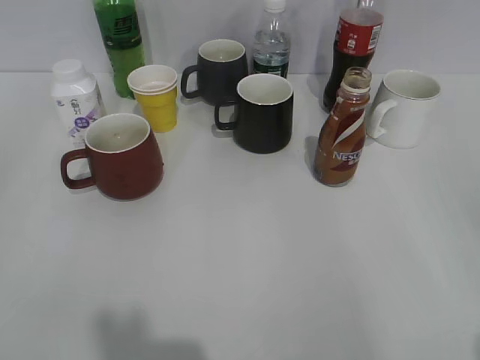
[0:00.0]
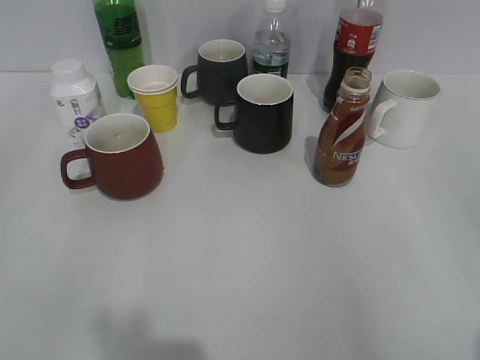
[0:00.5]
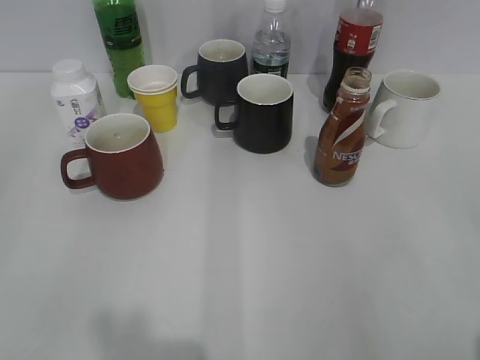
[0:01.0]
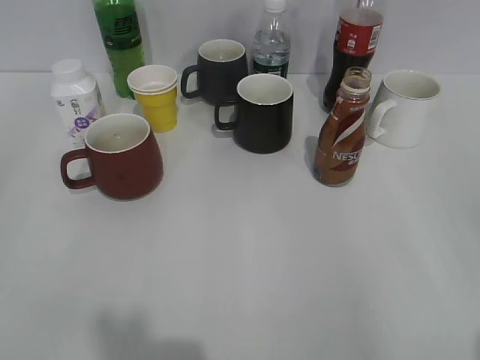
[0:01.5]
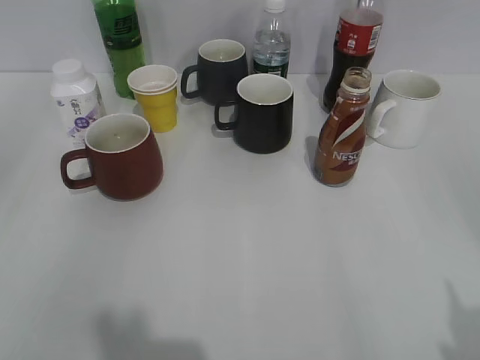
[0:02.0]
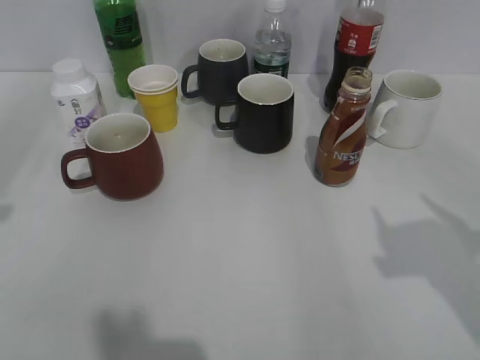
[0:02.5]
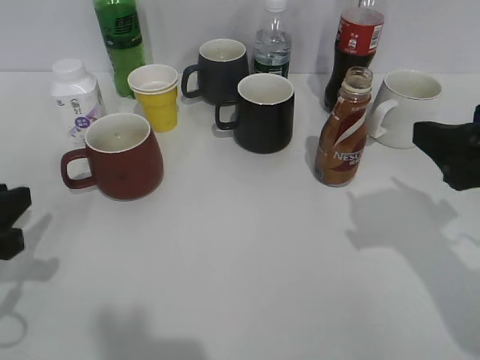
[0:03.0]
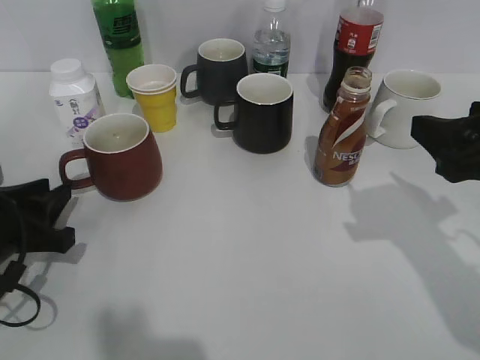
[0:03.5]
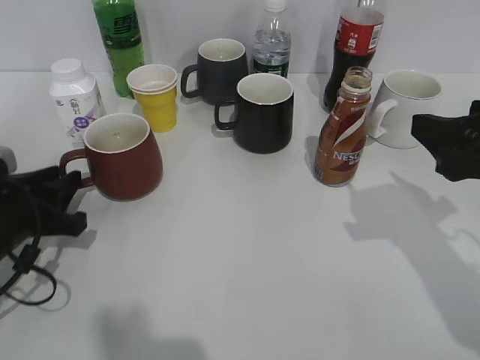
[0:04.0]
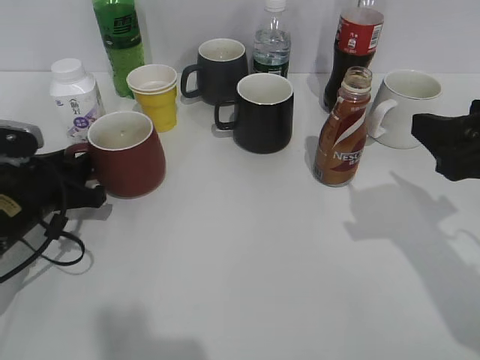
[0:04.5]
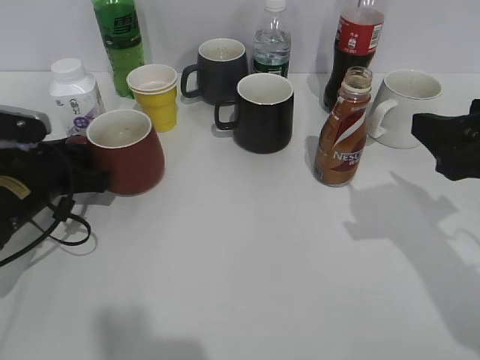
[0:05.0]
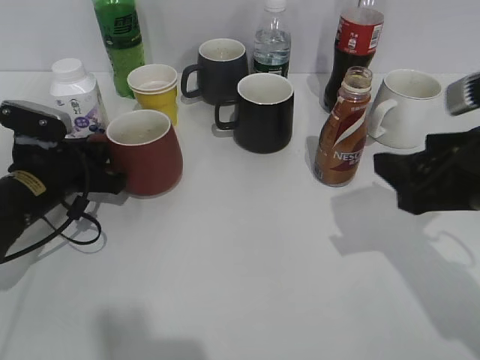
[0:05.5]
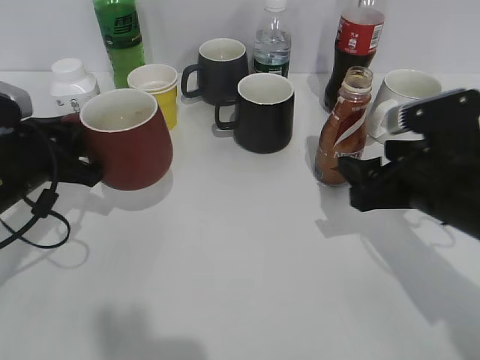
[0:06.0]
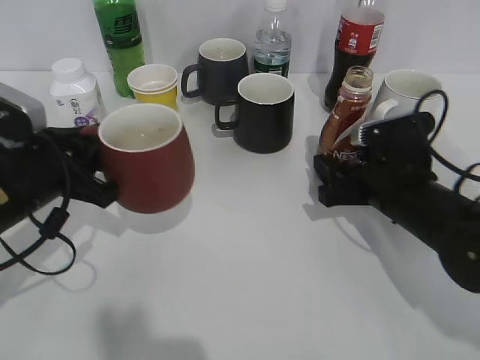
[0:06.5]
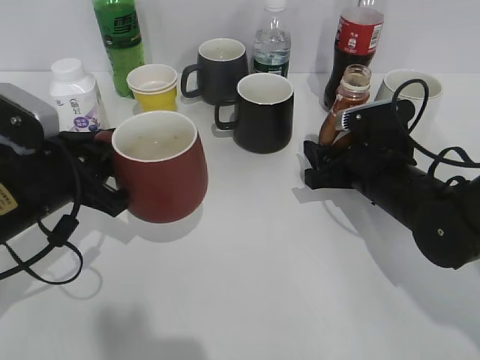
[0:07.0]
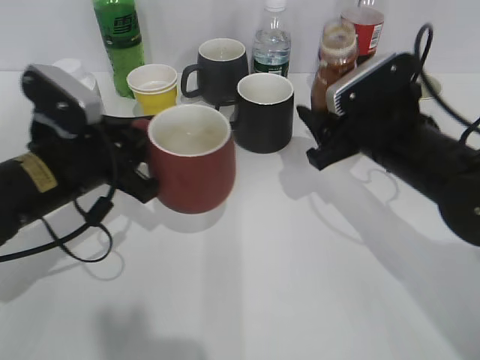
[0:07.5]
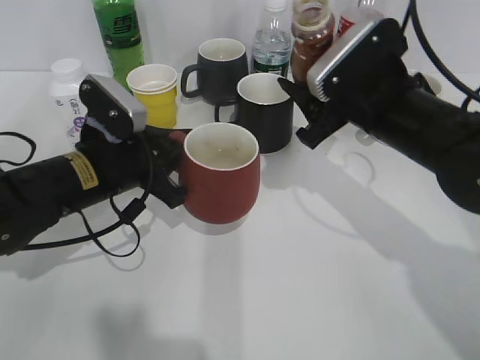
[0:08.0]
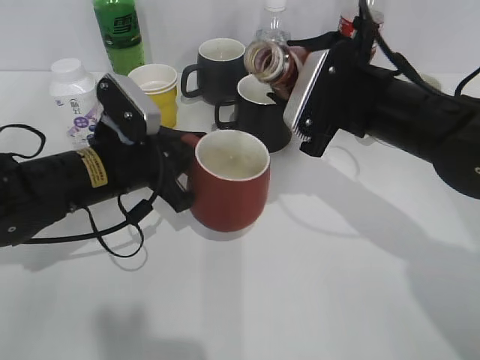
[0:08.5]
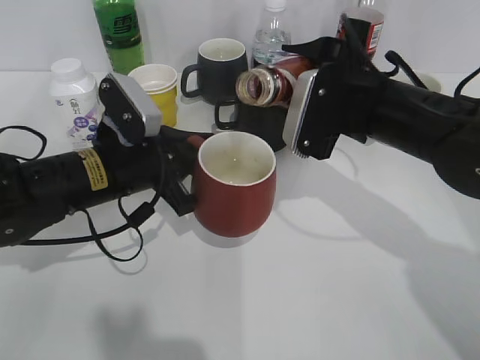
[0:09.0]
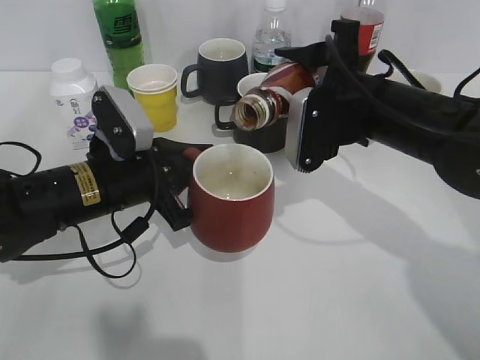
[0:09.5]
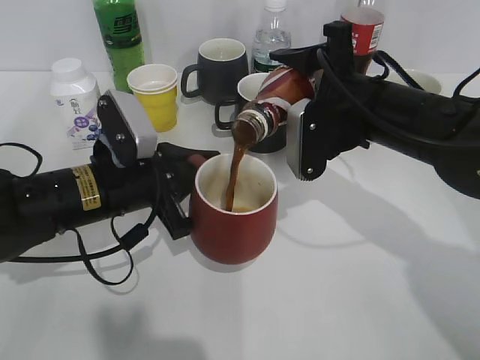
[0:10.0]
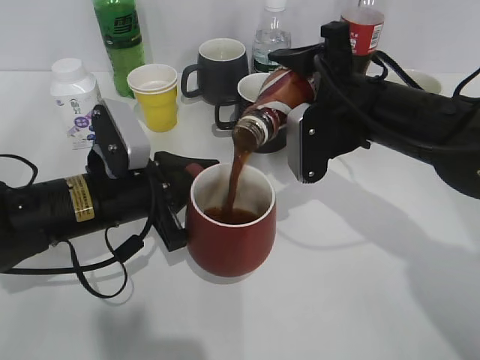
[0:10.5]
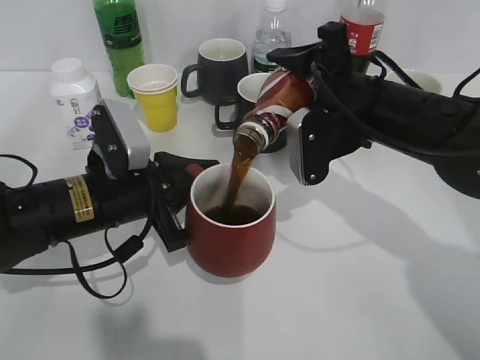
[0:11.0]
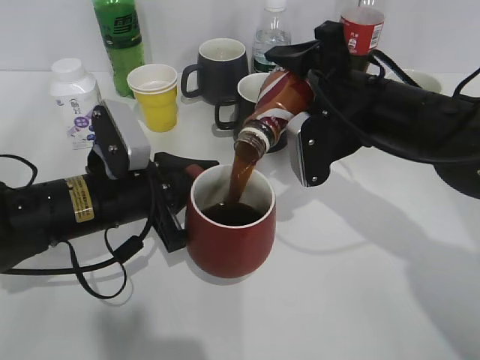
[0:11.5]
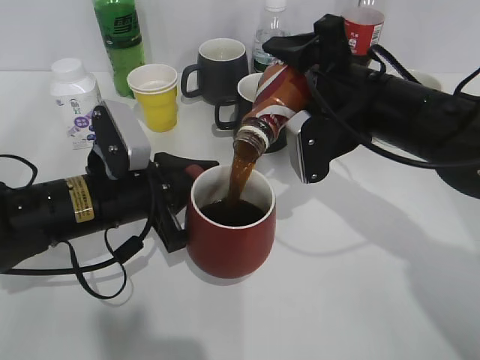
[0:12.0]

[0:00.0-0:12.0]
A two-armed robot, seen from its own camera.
Step, 0:01.5 to 0:05.5: Grasp the red cup with left gripper.
Step, 0:06.0 to 0:06.5: Grasp the bottle with coffee with right gripper.
0:02.0 to 0:04.0: The left gripper shifts roughly 25 cm downward and forward; the right gripper goes approximately 20 cm forward.
0:04.0 to 0:06.0: The right gripper travels downward by approximately 10 cm. The left gripper shifts by roughly 5 cm, and closes its fingers.
0:06.0 to 0:08.0: The left gripper moves to the right, some 10 cm, while the right gripper heads forward and to the left, covering some 10 cm.
0:10.0 to 0:12.0: The grippers move only a little.

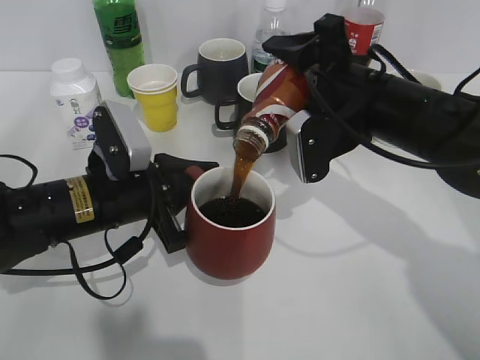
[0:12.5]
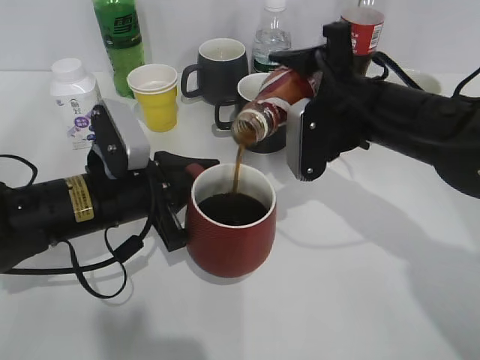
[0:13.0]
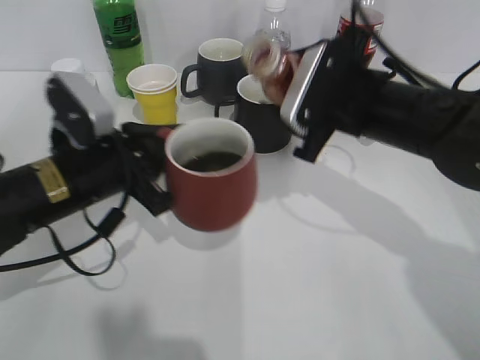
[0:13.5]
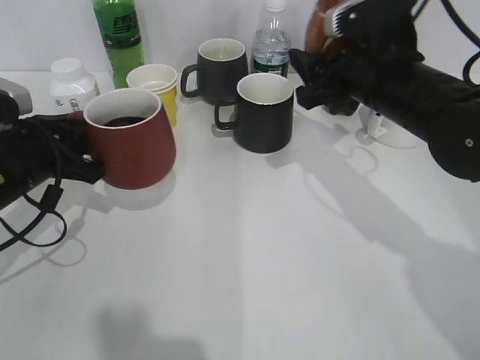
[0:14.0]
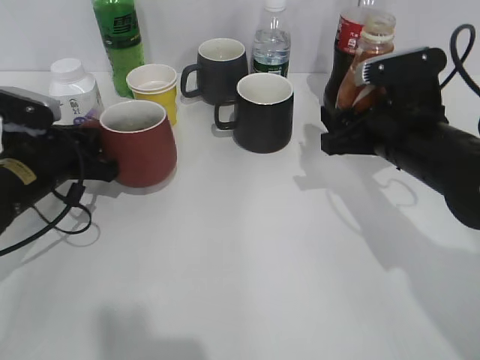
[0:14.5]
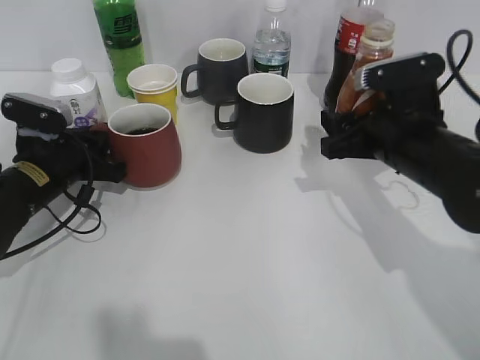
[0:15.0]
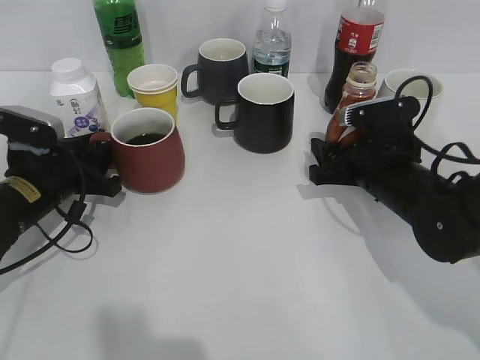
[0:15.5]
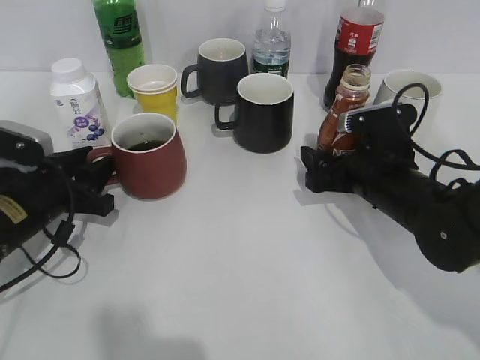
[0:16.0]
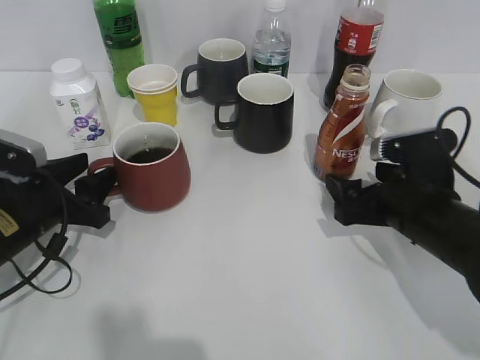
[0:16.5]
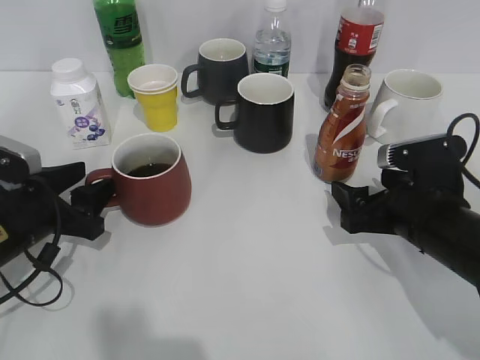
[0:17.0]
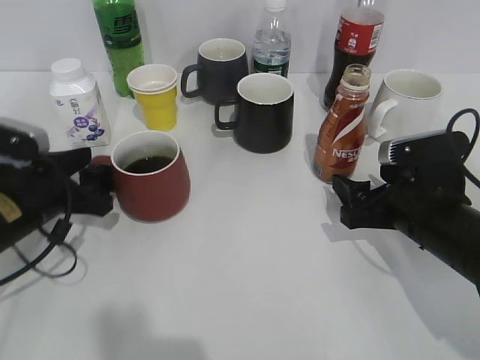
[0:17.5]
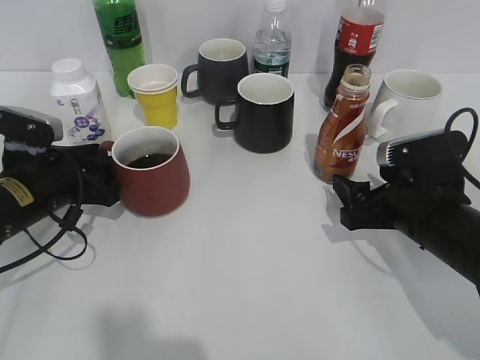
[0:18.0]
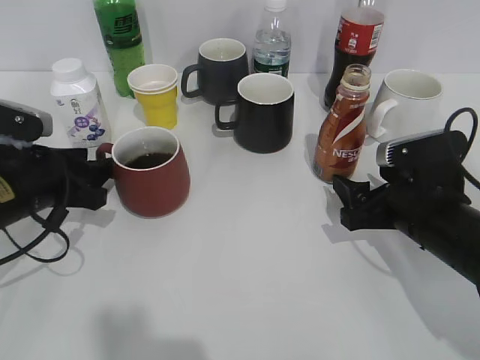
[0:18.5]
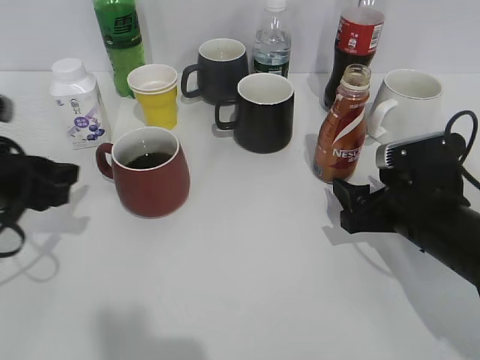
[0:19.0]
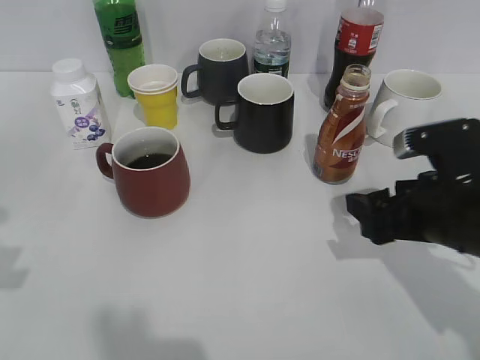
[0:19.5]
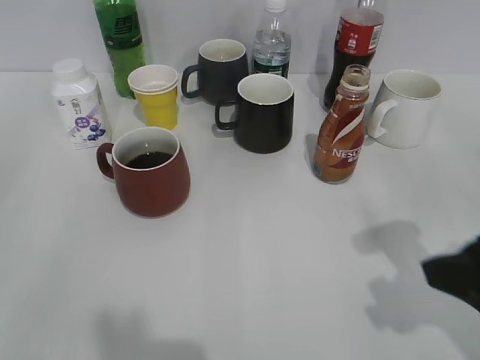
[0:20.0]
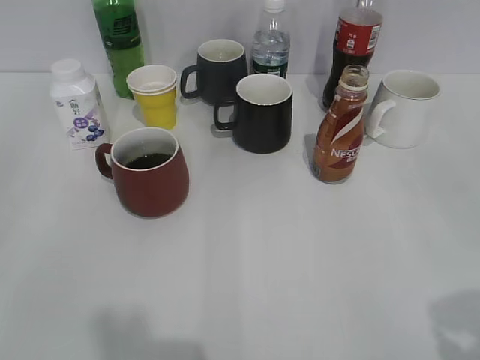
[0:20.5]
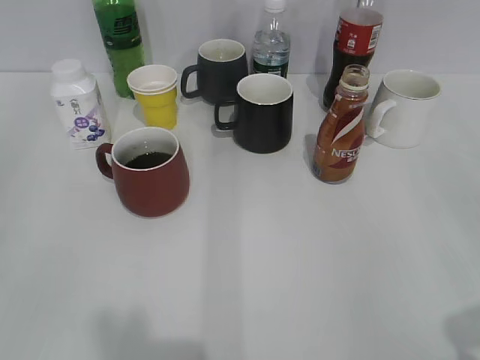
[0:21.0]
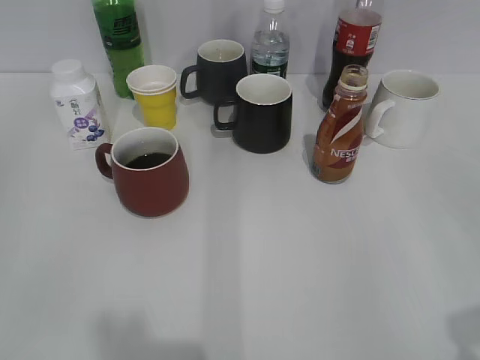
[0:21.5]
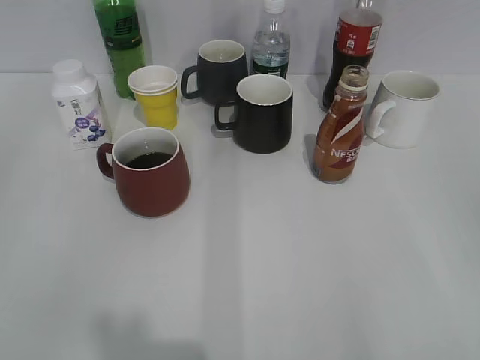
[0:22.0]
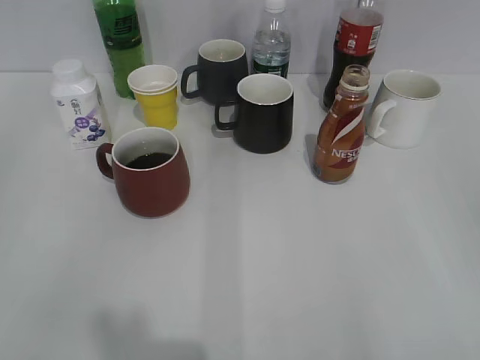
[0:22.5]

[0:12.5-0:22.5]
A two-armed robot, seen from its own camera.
Step, 0:13.5 to 0:18.5: Place the red cup on the table with left gripper.
0:12.5 to 0:14.5: The right gripper ends up roughly 5 cm from where it was. The left gripper shifts approximately 10 cm to the left and forward.
0:14.5 to 0:16.5: The right gripper heads downward, covering about 5 cm, and opens its fingers. Meanwhile the left gripper shifts roughly 5 cm backward, and opens.
0:16.5 to 0:18.5: The right gripper closes.
0:18.5 to 0:20.5: The right gripper shifts some 30 cm backward, upward and to the right. Meanwhile the left gripper travels backward and upward by roughly 30 cm.

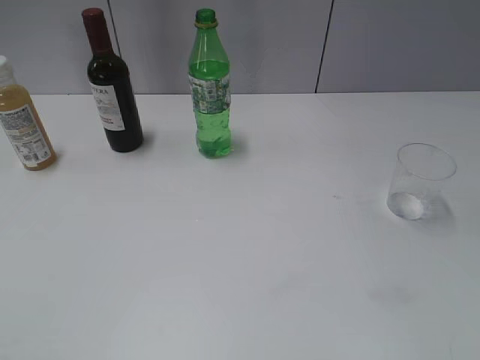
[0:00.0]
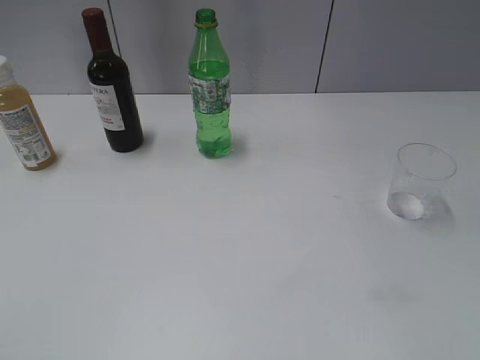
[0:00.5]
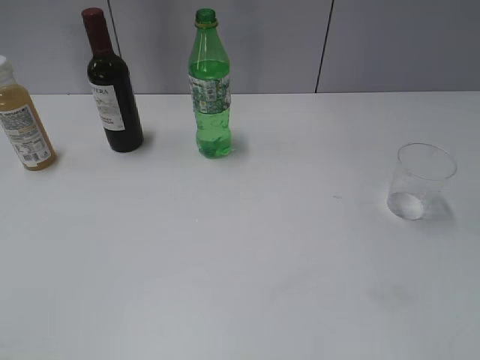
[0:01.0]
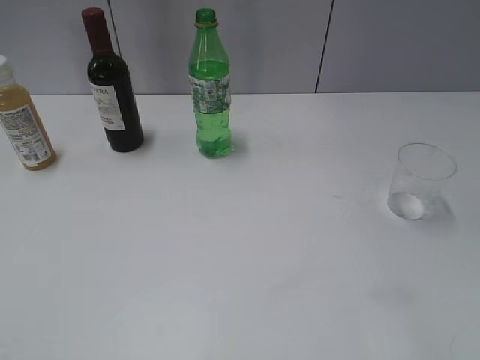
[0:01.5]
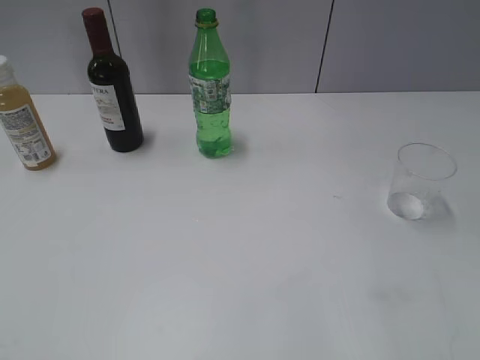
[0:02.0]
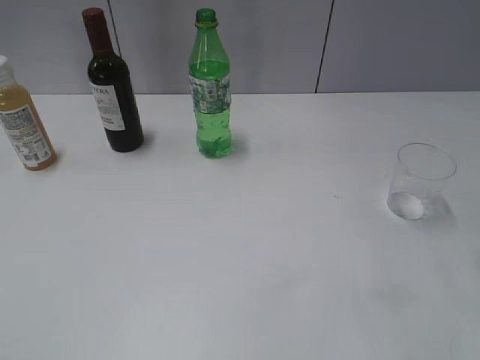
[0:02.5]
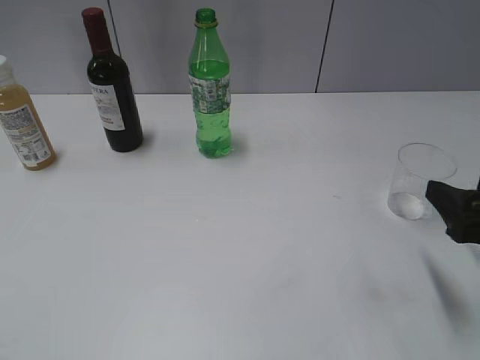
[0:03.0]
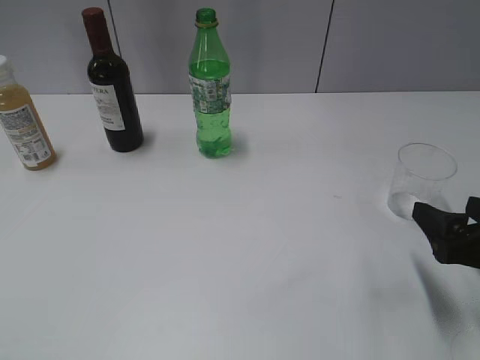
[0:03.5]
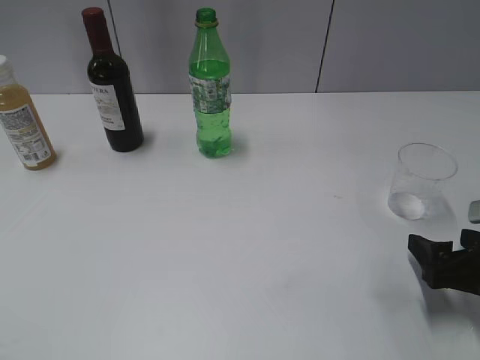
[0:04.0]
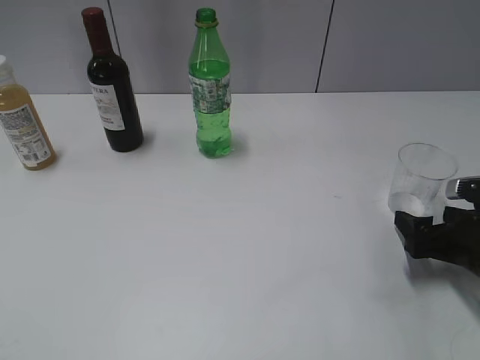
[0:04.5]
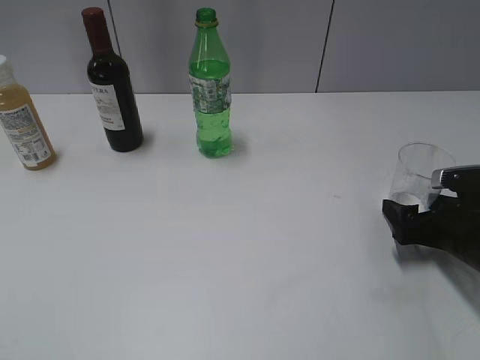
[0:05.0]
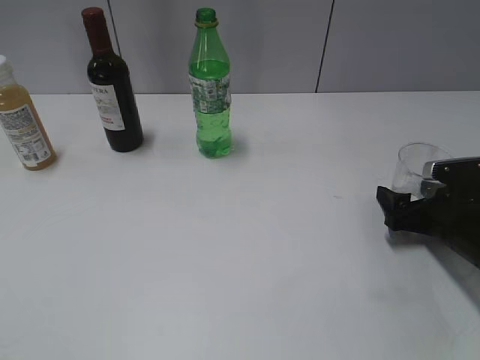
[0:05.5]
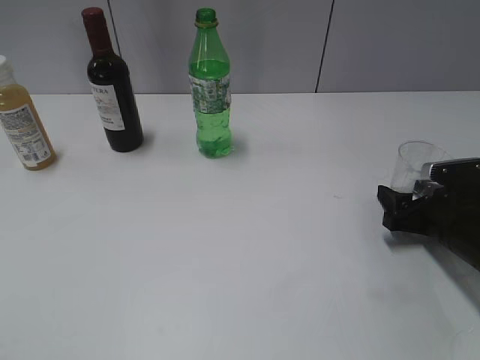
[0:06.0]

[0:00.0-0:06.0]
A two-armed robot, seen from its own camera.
0:02.0 to 0:04.0: The right gripper heads downward and forward, covering approximately 15 cm, and opens.
0:04.0 to 0:06.0: The right gripper moves forward, about 10 cm, and closes up.
